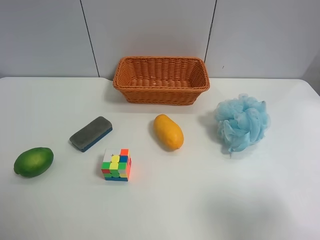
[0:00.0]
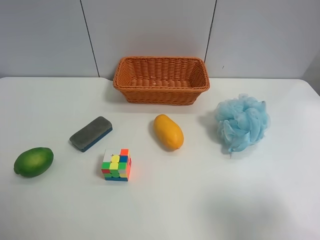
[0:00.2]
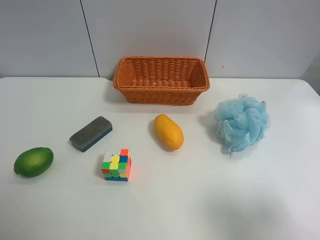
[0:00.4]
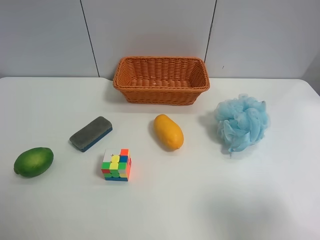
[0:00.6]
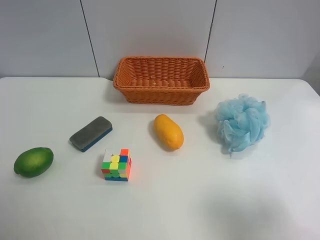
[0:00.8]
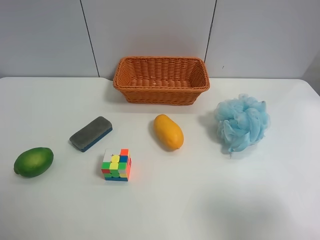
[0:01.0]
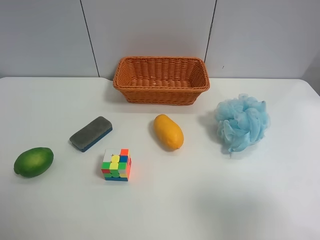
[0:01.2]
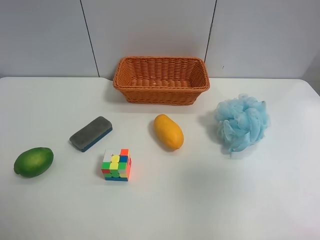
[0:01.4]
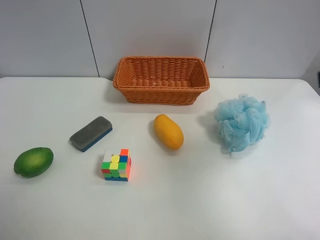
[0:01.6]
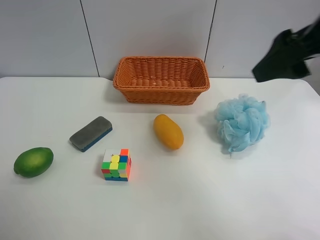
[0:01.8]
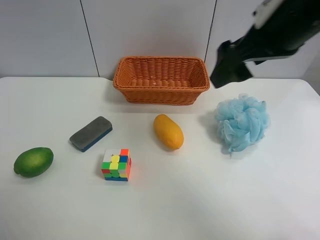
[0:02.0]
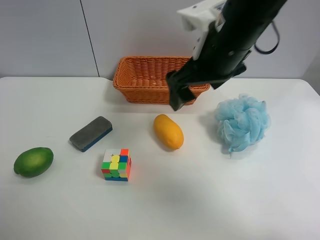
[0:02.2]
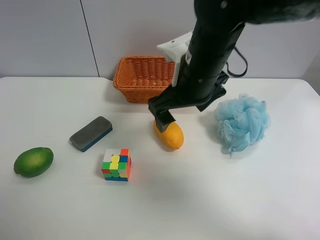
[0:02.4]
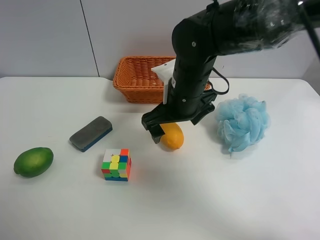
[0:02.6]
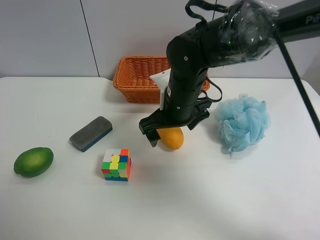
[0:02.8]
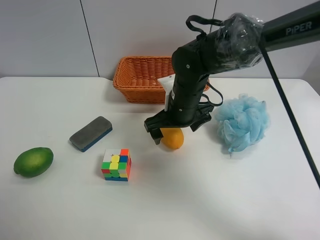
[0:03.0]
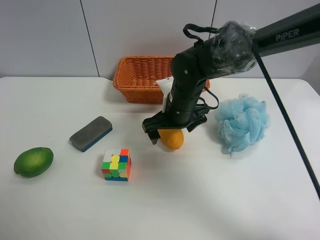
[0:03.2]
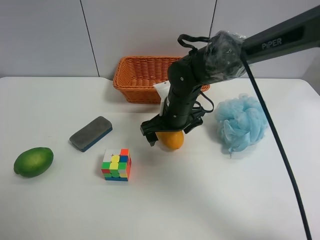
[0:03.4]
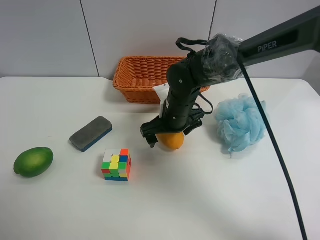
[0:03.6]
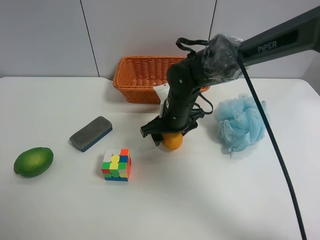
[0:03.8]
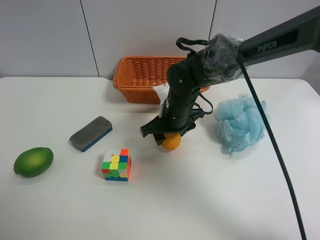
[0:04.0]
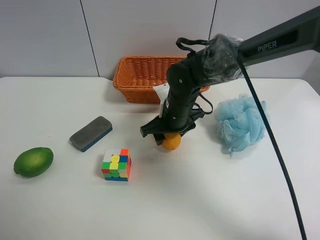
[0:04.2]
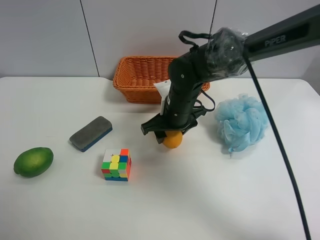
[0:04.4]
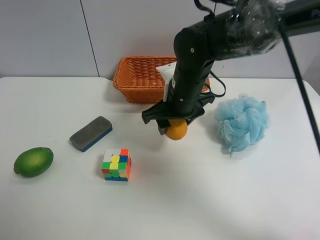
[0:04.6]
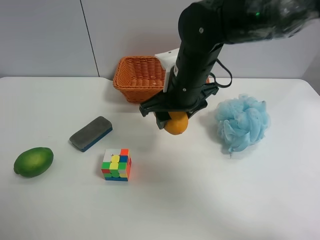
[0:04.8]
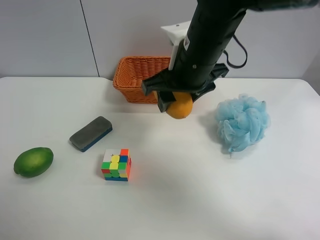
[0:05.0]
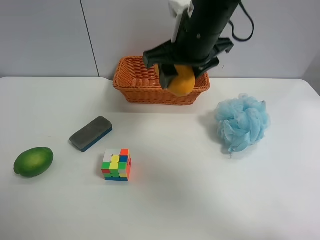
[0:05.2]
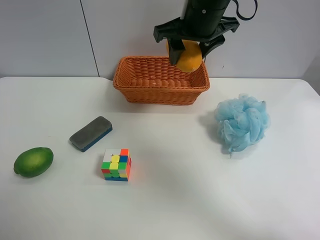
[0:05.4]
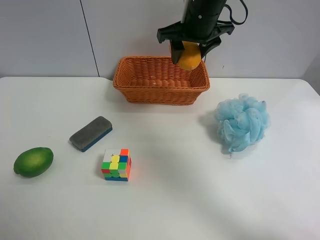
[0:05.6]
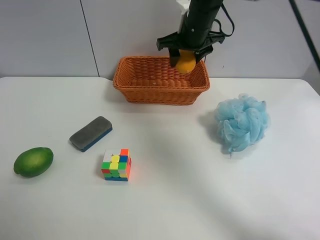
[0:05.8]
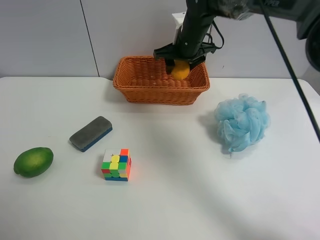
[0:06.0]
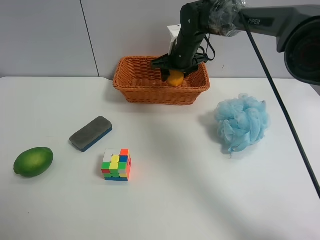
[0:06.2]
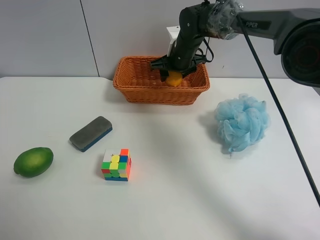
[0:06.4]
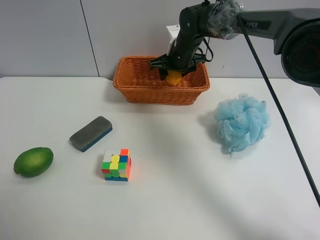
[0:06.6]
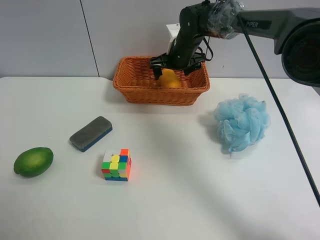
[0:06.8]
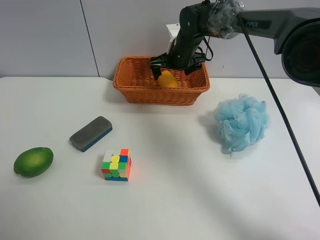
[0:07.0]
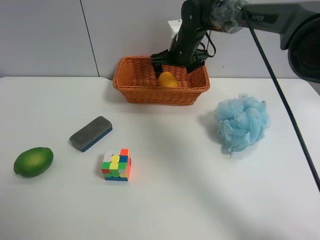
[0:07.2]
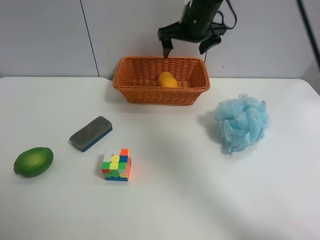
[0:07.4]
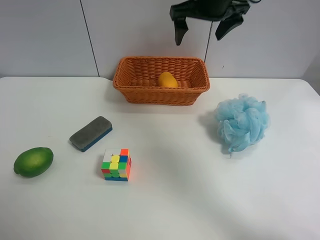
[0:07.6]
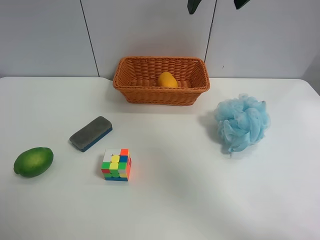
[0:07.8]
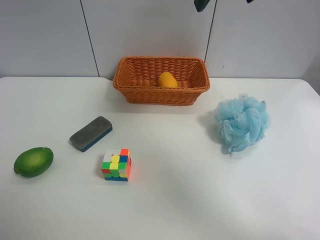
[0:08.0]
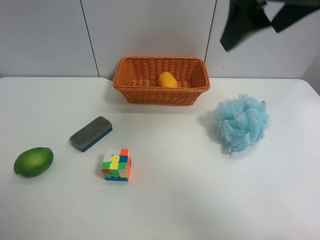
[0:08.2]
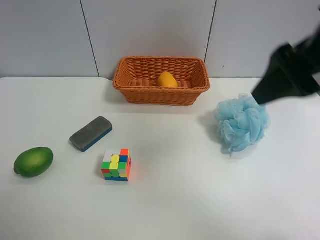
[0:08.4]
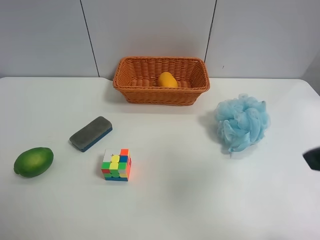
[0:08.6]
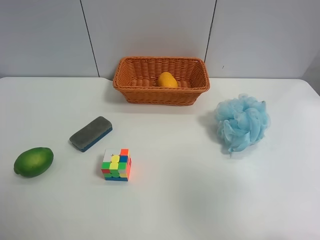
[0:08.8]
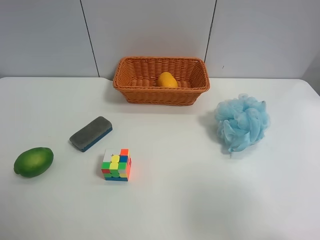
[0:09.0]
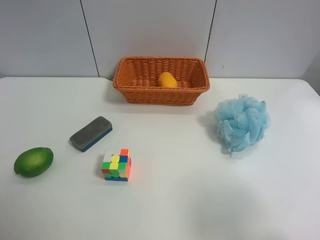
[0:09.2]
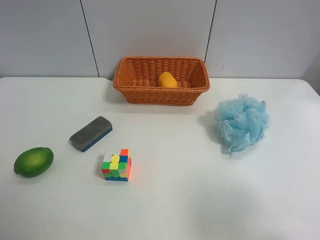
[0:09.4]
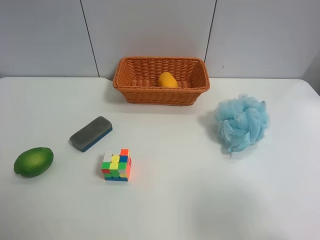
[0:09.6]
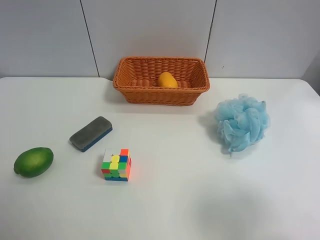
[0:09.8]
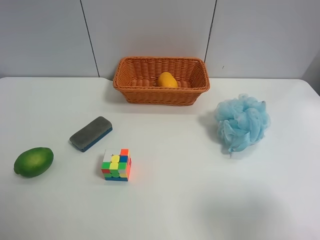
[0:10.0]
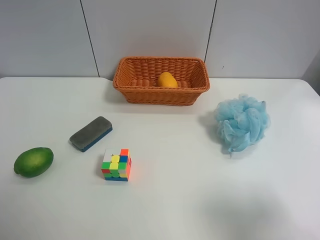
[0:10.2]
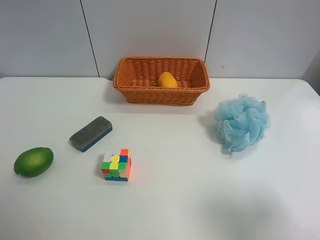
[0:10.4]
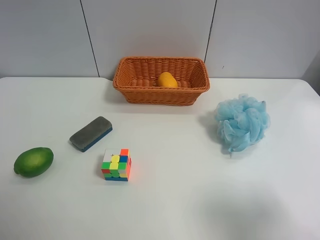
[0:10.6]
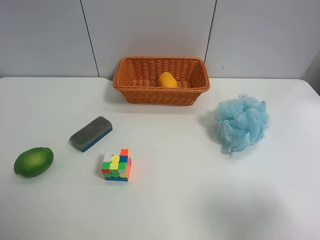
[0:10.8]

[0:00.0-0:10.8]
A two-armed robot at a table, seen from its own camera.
Task of the whole recording: Randomly grab green lemon or mangoes from the table and put them in a basket.
Step, 0:00.0 to 0:04.0: Grasp the mango with the right gripper.
Step, 0:04.2 to 0:07.4: Place the mango into the basket with the right gripper.
0:00.0 to 0:01.6: The right gripper is displaced forward and upward by some 15 cm.
0:01.6 to 0:03.0: The right gripper travels downward, to the left and forward by approximately 35 cm.
0:03.0 to 0:04.6: The right gripper closes.
0:04.6 to 0:06.2: The right gripper goes some 15 cm forward.
0:06.2 to 0:07.8: The right gripper moves upward and backward, some 25 cm, and opens its fingers.
0:07.8 to 0:09.2: The right gripper travels backward, to the right and downward by some 40 cm.
